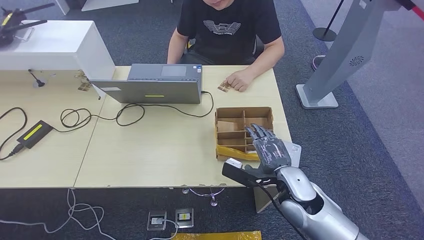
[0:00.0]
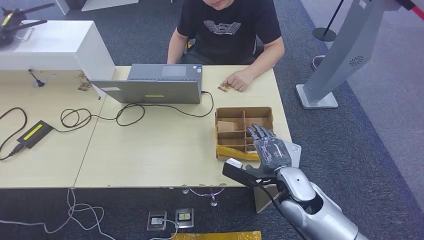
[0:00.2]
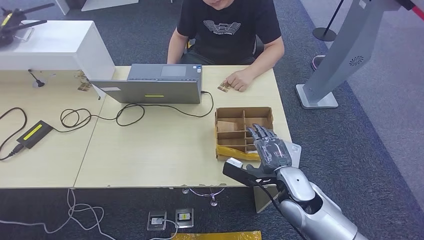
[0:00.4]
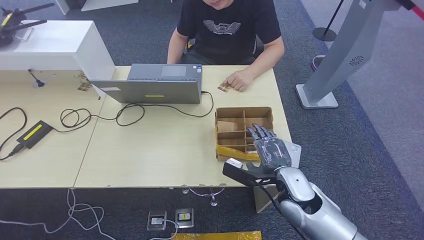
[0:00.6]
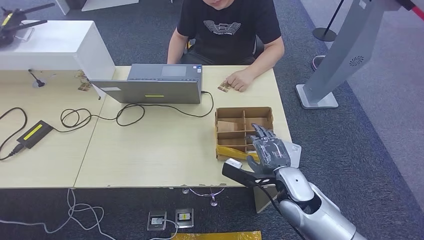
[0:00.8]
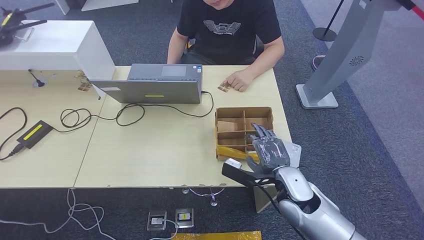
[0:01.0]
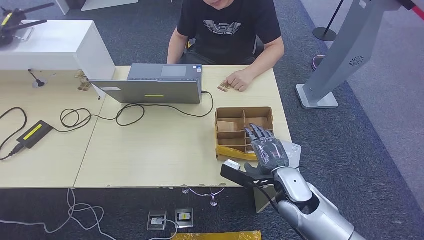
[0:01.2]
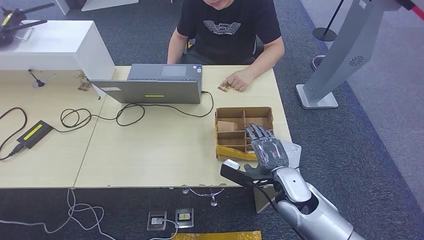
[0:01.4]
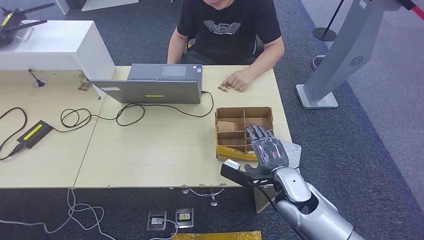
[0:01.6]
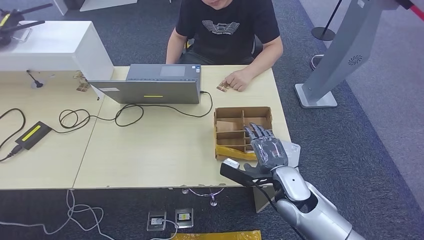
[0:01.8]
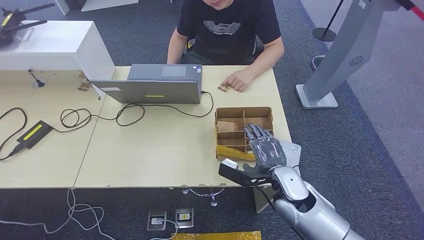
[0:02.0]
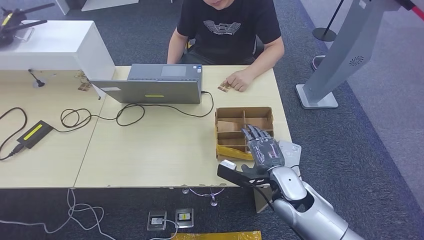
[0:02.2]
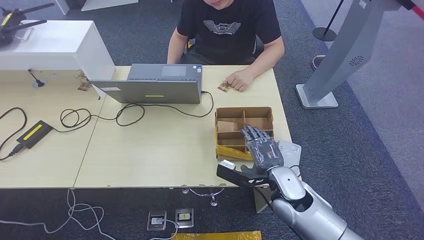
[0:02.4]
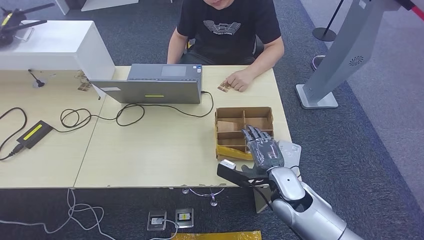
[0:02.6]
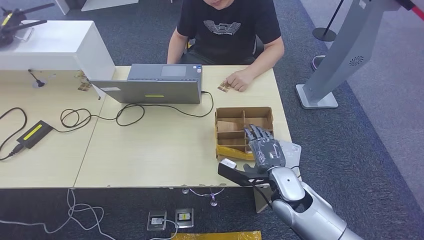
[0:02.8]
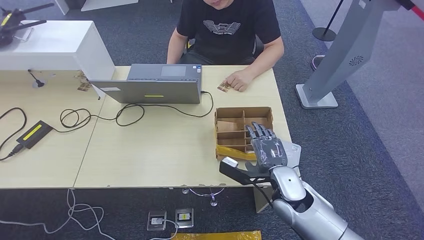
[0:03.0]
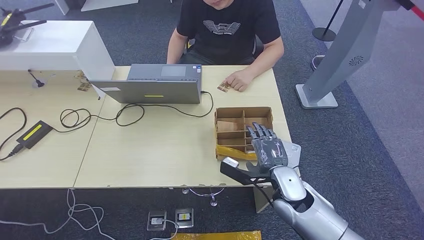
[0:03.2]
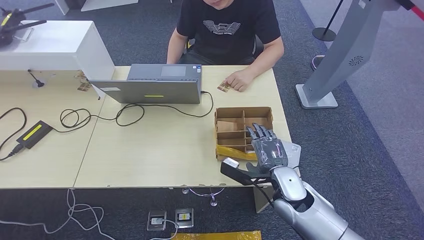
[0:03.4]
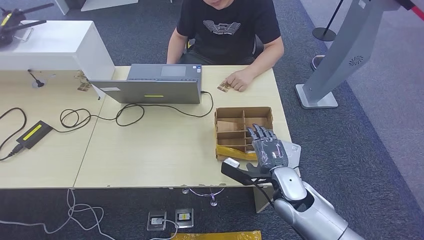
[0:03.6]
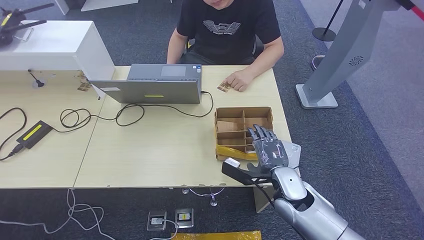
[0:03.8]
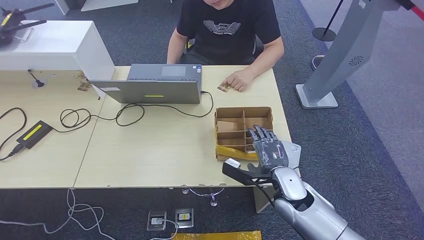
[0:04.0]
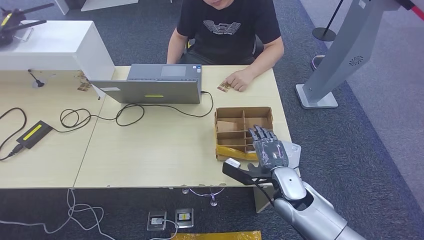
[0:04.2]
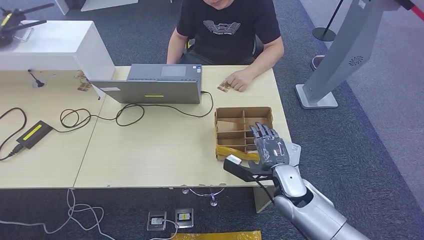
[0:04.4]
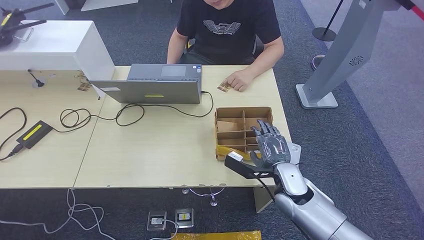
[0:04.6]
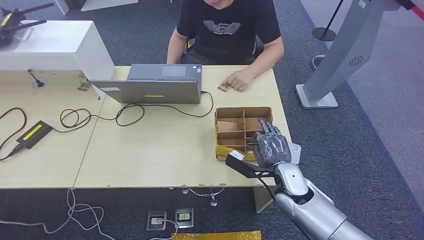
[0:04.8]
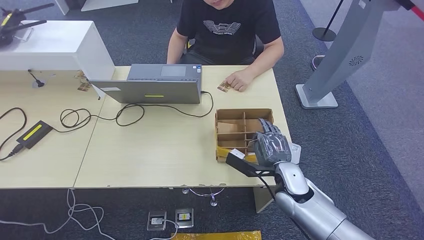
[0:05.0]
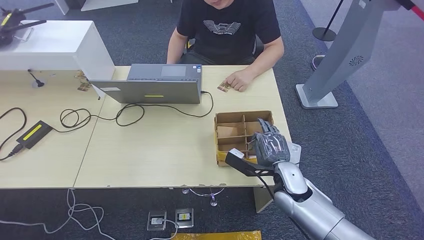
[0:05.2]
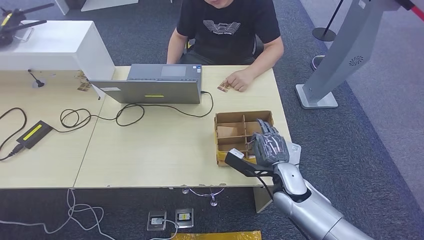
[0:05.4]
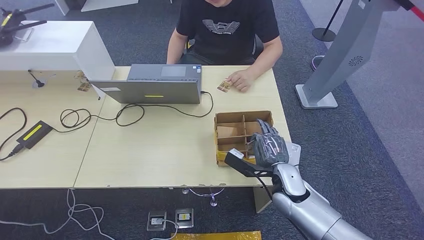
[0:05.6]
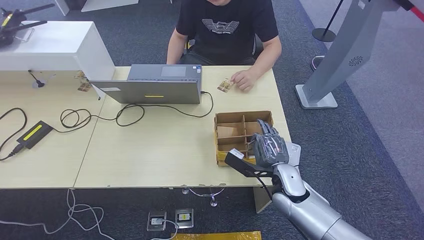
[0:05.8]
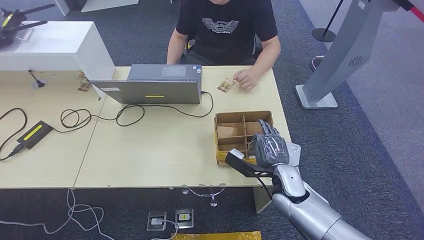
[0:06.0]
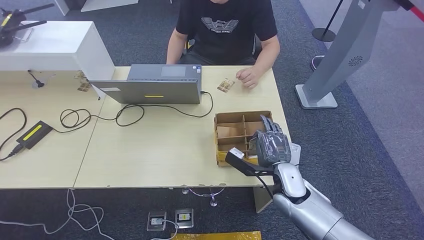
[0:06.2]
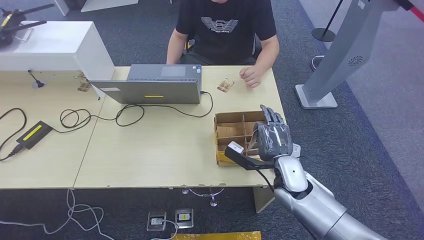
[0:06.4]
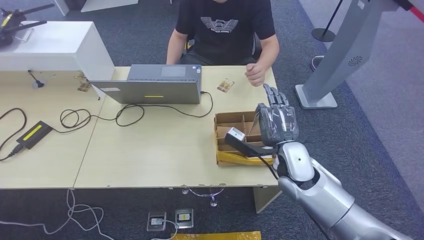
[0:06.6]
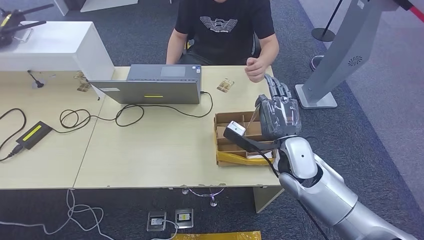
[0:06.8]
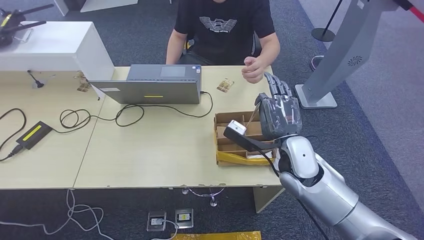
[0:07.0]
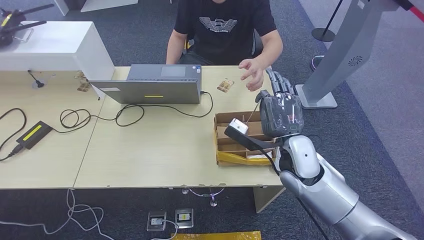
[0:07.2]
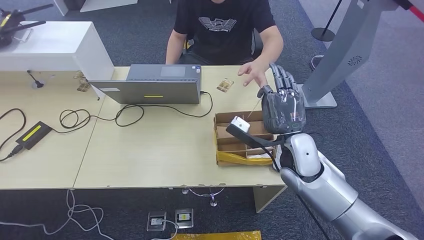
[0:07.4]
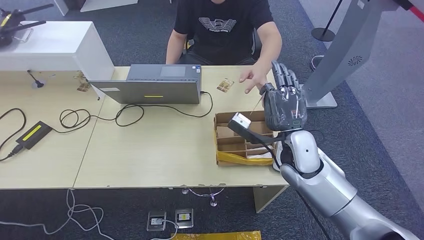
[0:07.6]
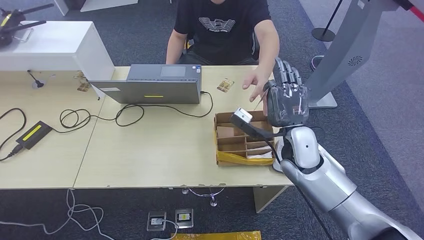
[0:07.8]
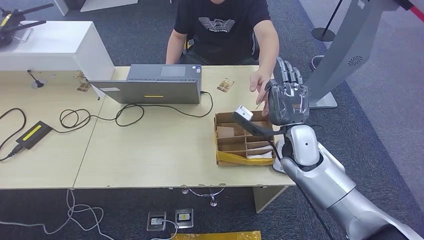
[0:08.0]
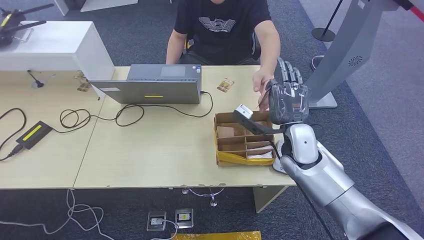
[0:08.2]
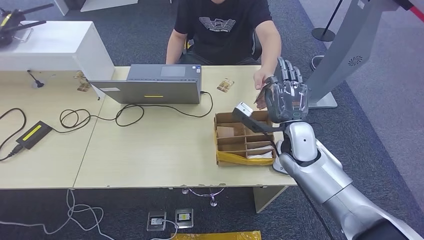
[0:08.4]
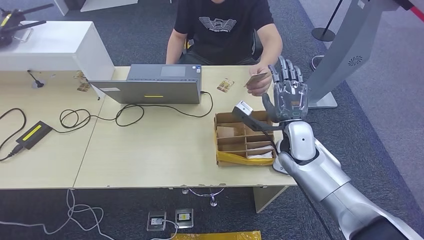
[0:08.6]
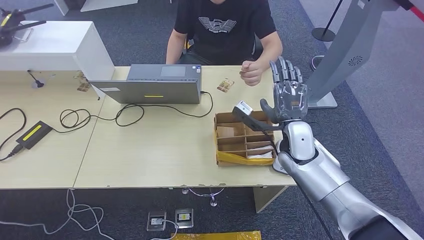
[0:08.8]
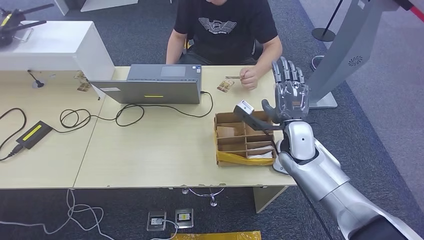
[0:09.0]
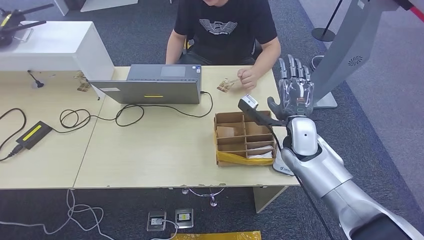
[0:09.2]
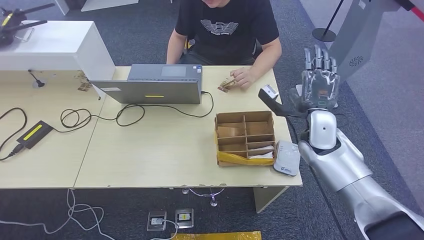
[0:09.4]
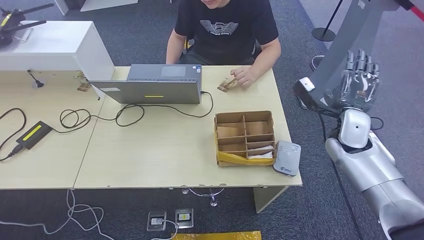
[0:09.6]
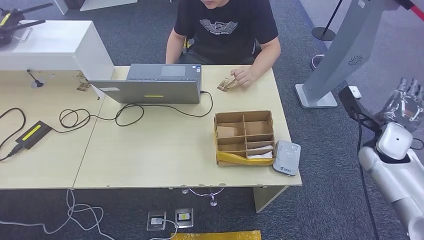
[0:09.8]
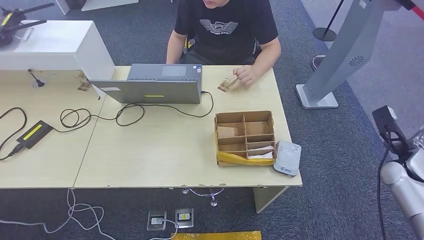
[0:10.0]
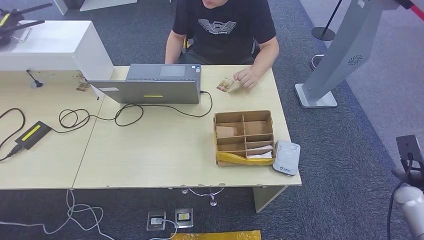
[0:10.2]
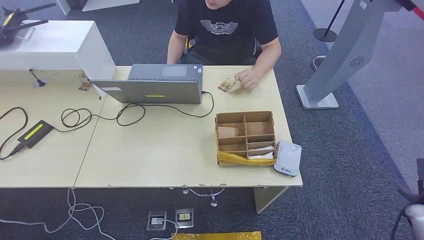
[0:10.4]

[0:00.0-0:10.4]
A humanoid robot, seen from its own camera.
Step, 0:00.0 to 0:06.6: Pick up the room key from the key card box.
Step, 0:07.4 to 0:10.4: Hand the room key to the person.
0:00.0 to 0:03.0: There are only small adjustments of the hands.
0:03.0 to 0:06.0: The hands stay close to where they were, moving slightly.
0:06.0 to 0:07.4: The right hand travels upward by some 10 cm.
0:07.4 to 0:09.0: There are only small adjustments of the hands.
0:09.0 to 0:10.4: The right hand heads to the right, covering roughly 35 cm.
